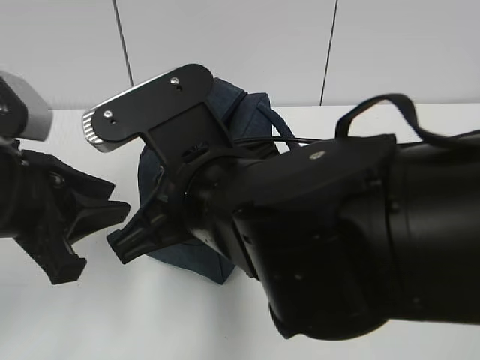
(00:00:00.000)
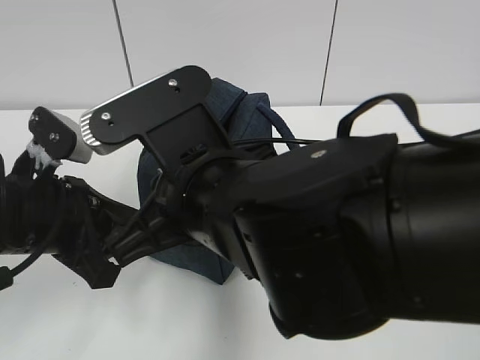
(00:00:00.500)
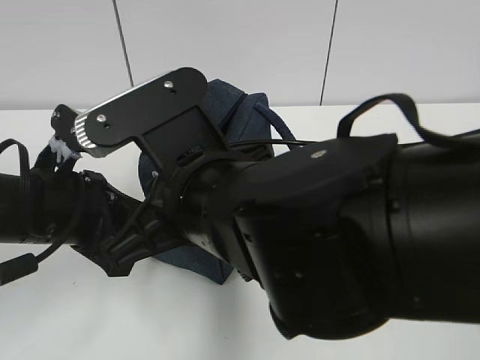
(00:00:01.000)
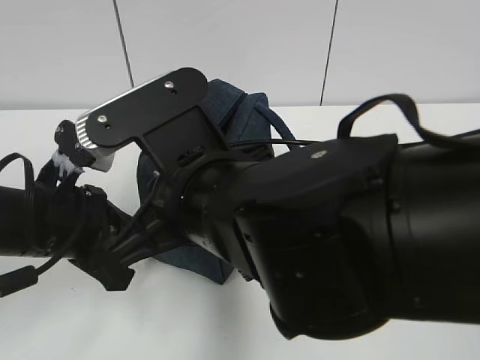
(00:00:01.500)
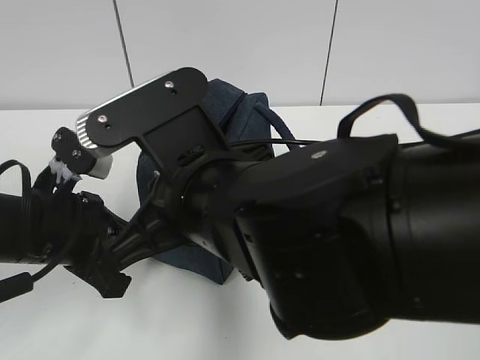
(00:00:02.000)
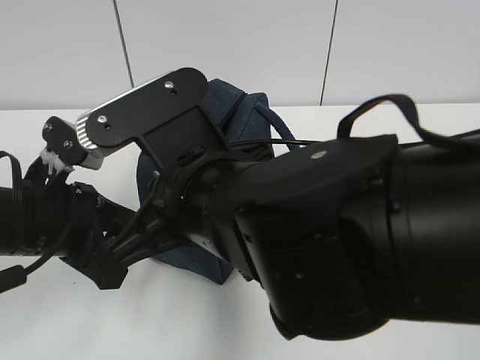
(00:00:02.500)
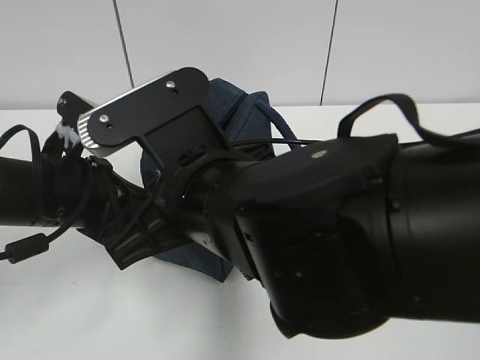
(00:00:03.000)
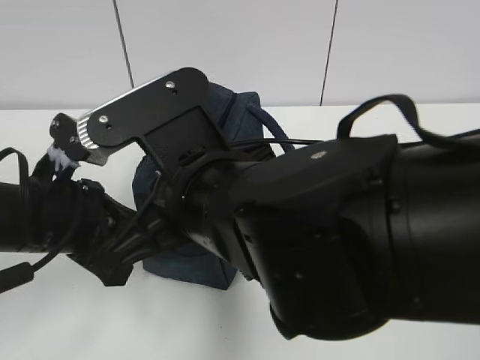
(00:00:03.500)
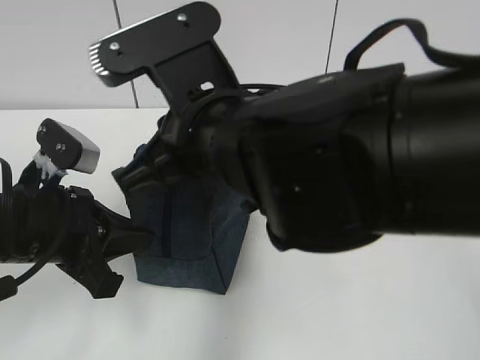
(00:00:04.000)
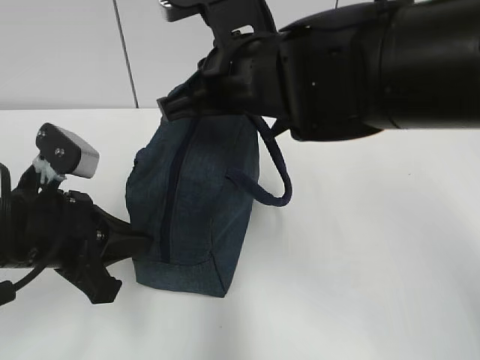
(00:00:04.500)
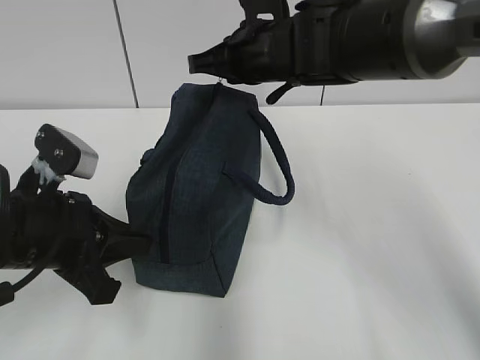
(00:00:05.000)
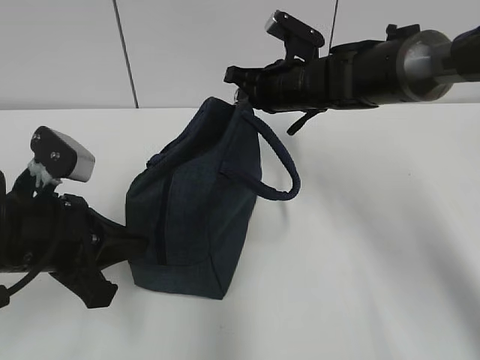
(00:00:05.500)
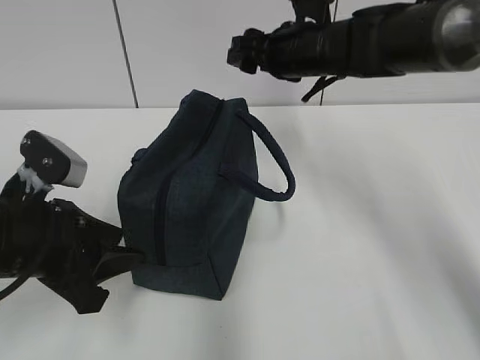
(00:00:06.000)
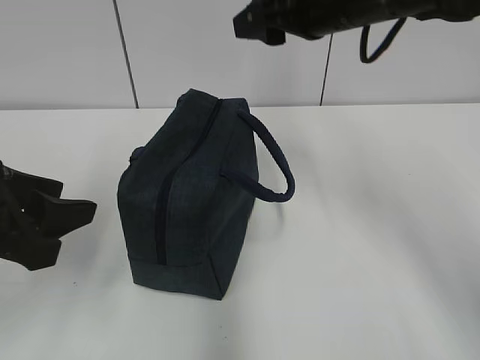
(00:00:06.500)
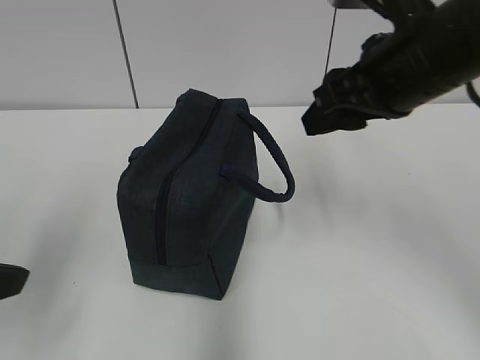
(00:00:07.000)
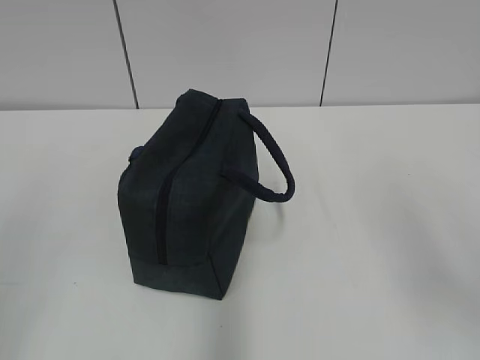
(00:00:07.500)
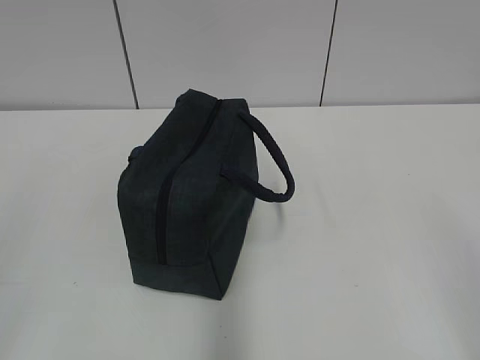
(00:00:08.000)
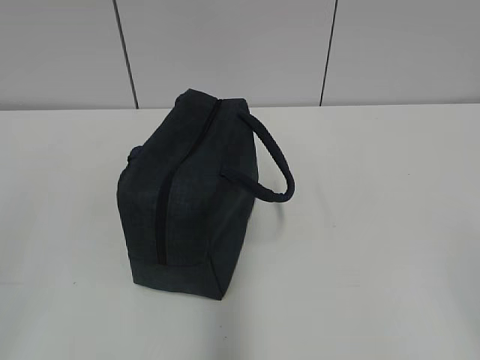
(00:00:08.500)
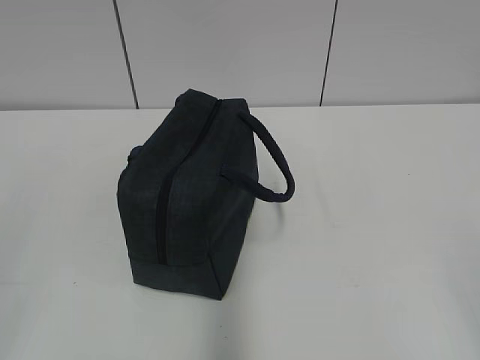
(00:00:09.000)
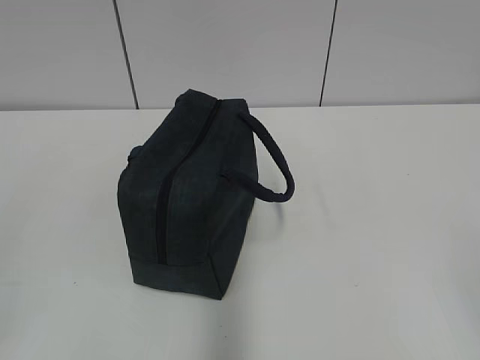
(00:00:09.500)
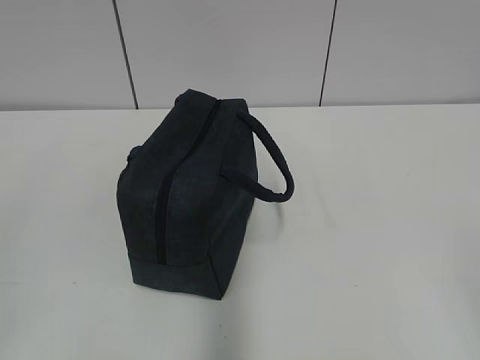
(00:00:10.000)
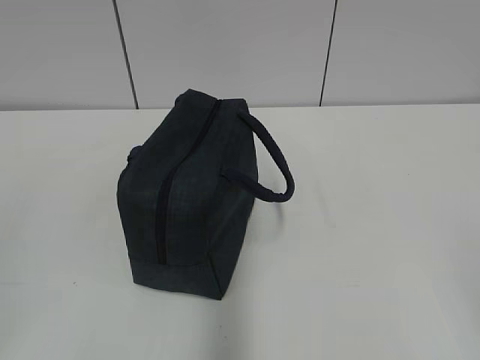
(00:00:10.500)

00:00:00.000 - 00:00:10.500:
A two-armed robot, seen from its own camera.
Step, 00:00:00.000 - 00:00:05.500: Pull the zipper with your right hand.
00:00:00.000 - 00:00:02.000: The left gripper travels downward by some 5 cm, and closes up.
00:00:02.000 - 00:00:04.000: The left gripper opens and closes again.
00:00:04.000 - 00:00:06.500: The right gripper shifts roughly 20 cm forward and to the right, and opens. Meanwhile the left gripper goes approximately 5 cm upward, and opens its fingers.
00:00:06.500 - 00:00:08.500: The left gripper goes about 20 cm backward and to the left. The right gripper is displaced backward and to the right by roughly 40 cm.
